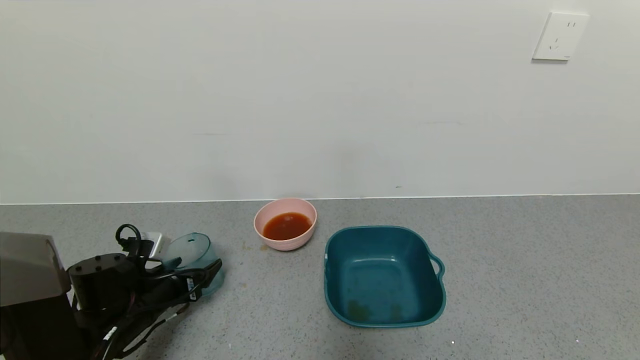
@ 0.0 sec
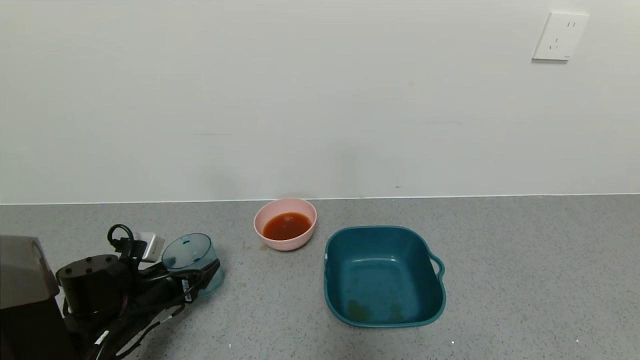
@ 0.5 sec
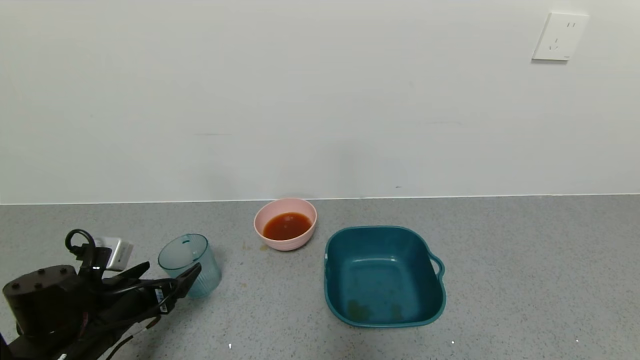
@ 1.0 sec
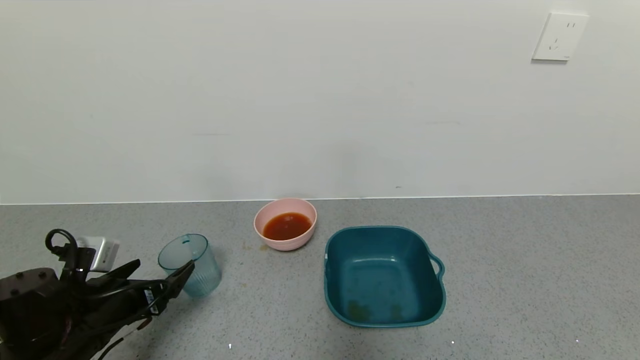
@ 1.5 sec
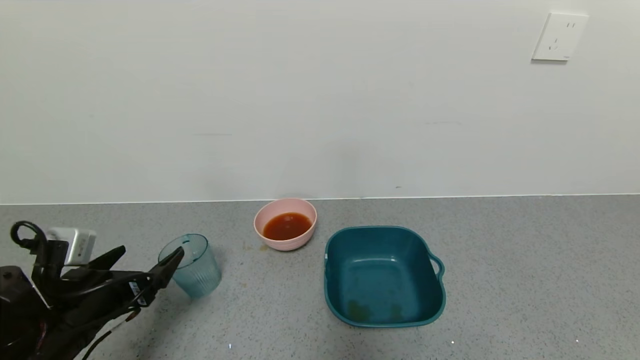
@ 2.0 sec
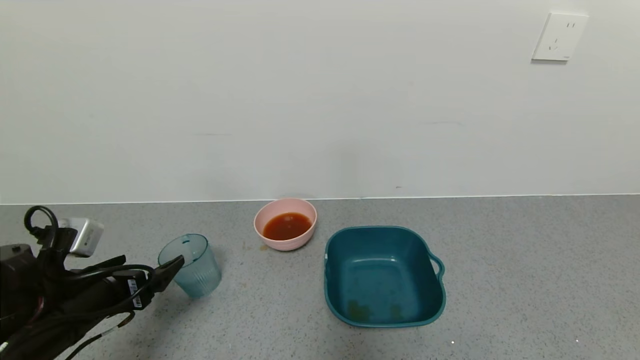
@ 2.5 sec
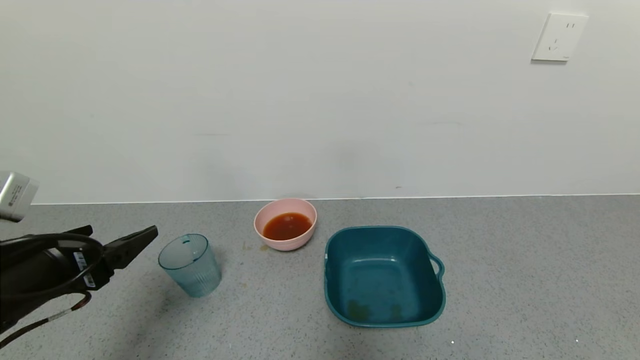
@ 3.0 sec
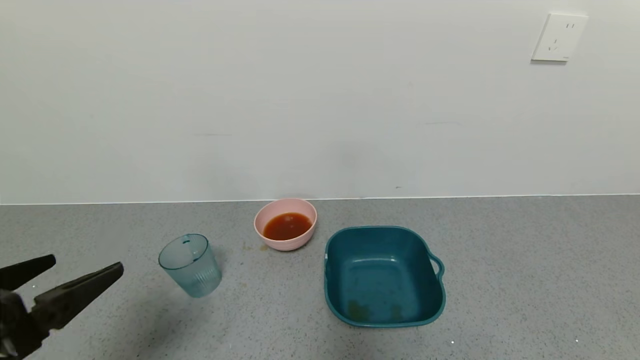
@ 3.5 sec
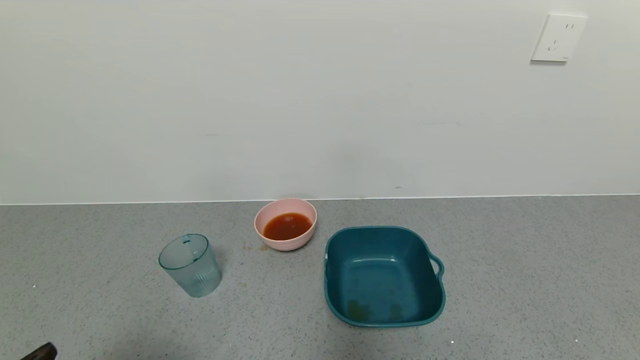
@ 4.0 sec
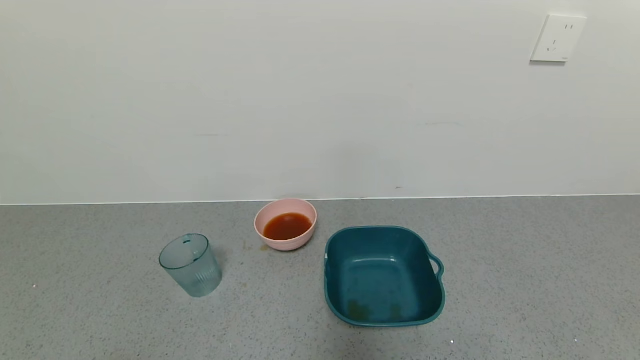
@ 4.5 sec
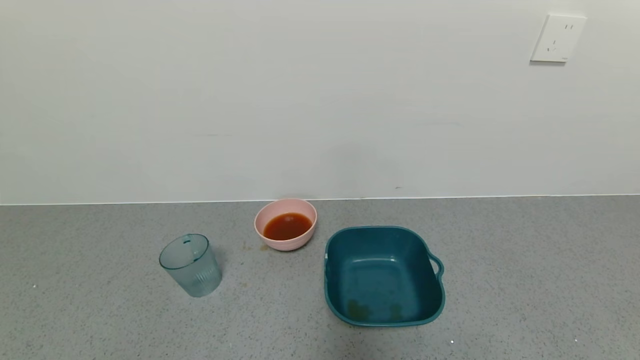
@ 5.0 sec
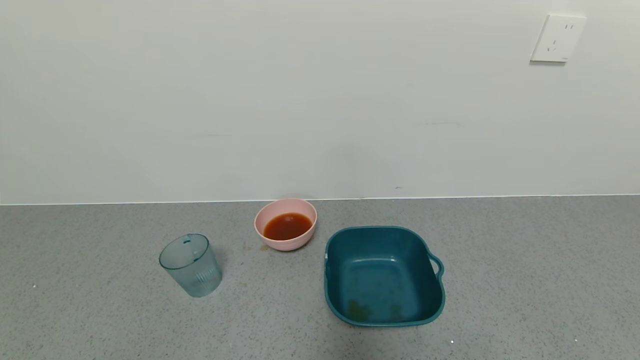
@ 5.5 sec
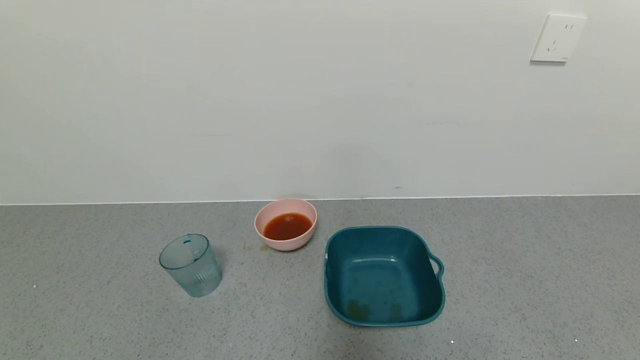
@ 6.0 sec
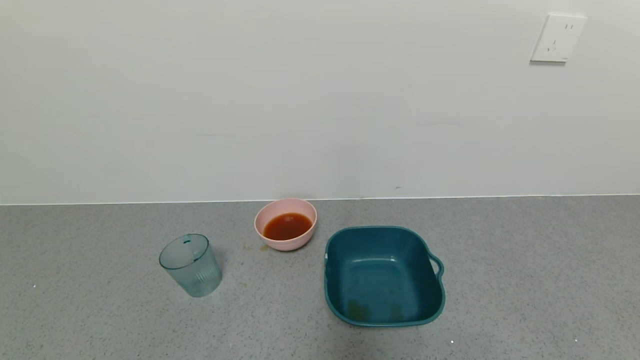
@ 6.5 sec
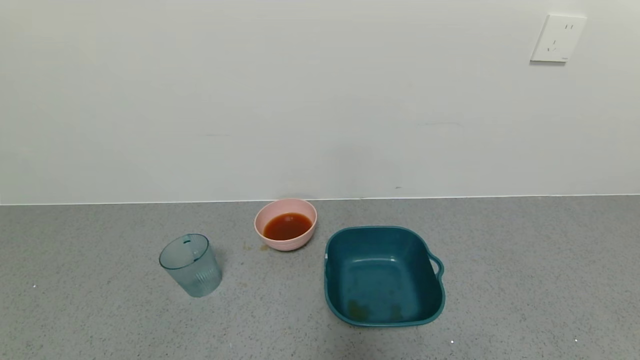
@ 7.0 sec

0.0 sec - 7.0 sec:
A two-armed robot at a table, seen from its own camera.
Task of the whole recording: use a gripper to pick up the cup and pour the liquid into a bowl or tray.
0.0 sec - 2.0 sec: The left gripper heads backward and upward, covering roughly 10 cm, and opens up.
2.0 sec - 3.5 sec: The left gripper travels upward and backward by about 15 cm.
3.5 sec - 5.0 sec: The left gripper shifts roughly 15 cm backward.
